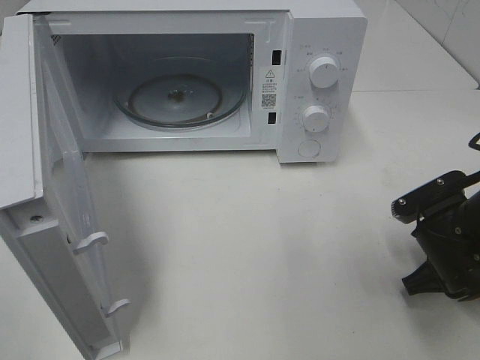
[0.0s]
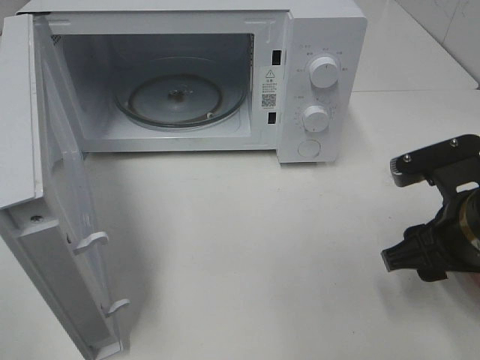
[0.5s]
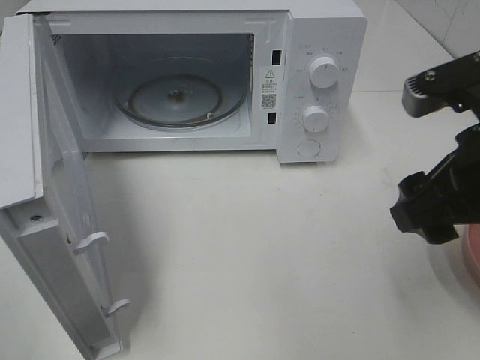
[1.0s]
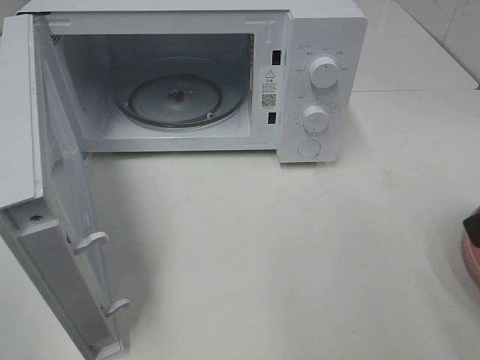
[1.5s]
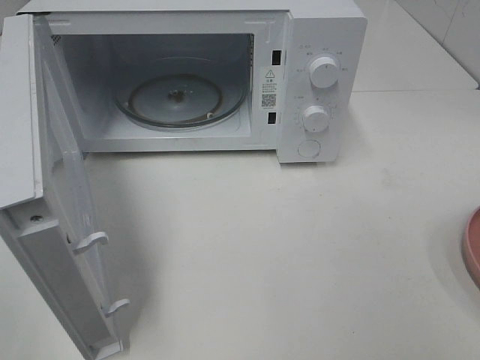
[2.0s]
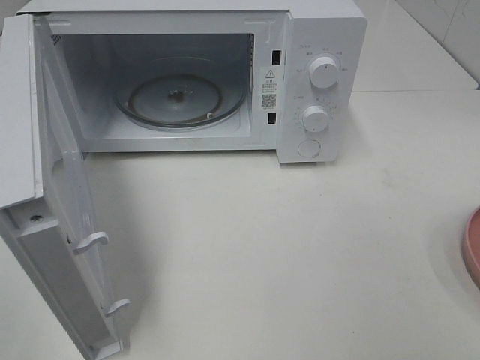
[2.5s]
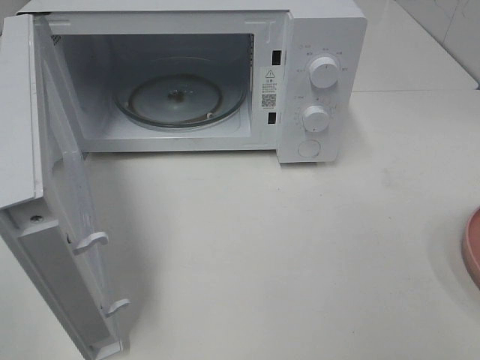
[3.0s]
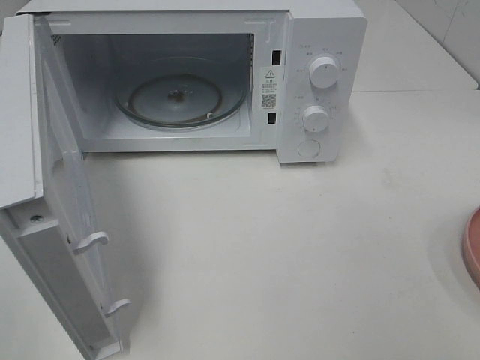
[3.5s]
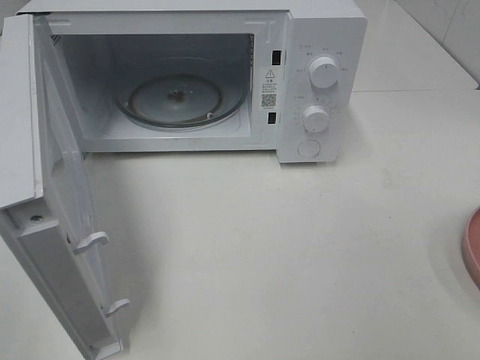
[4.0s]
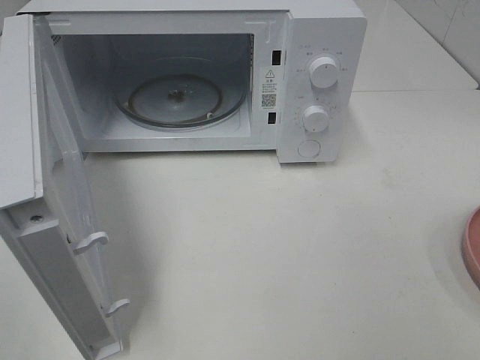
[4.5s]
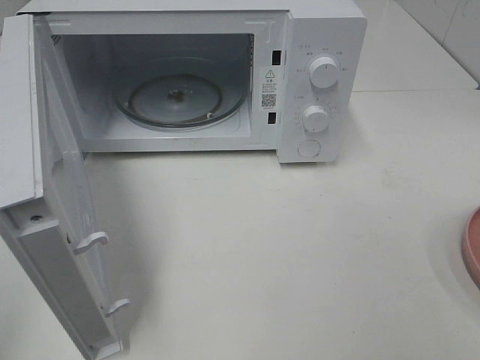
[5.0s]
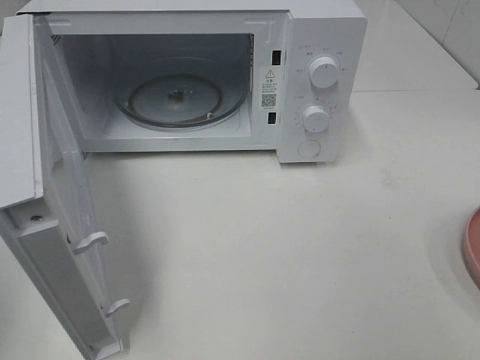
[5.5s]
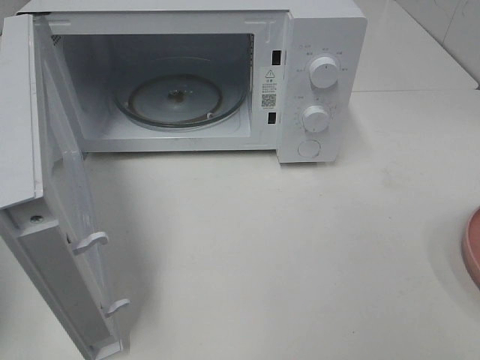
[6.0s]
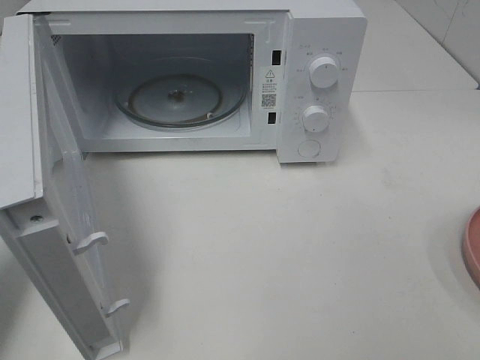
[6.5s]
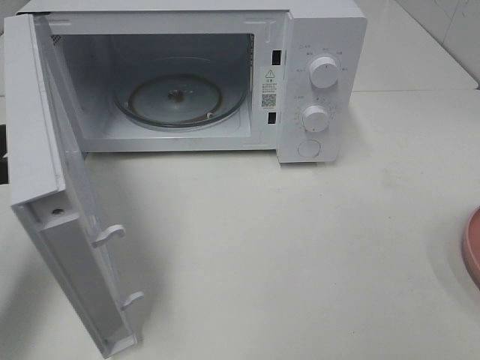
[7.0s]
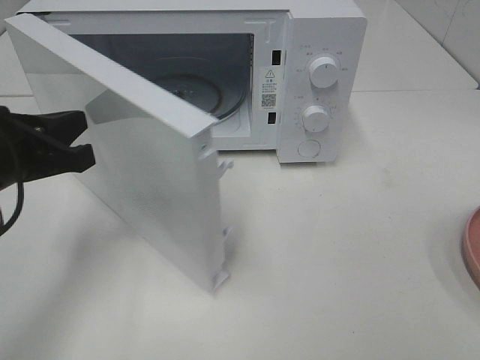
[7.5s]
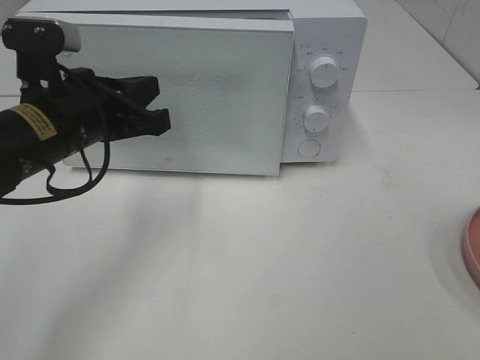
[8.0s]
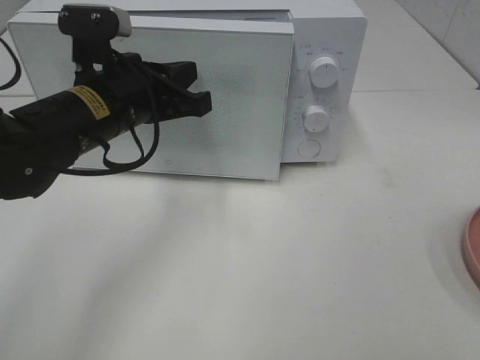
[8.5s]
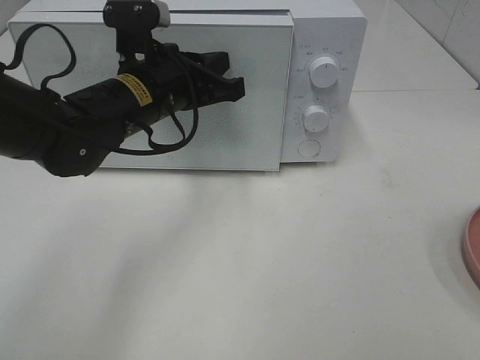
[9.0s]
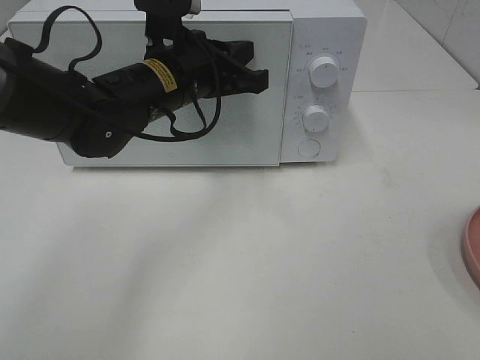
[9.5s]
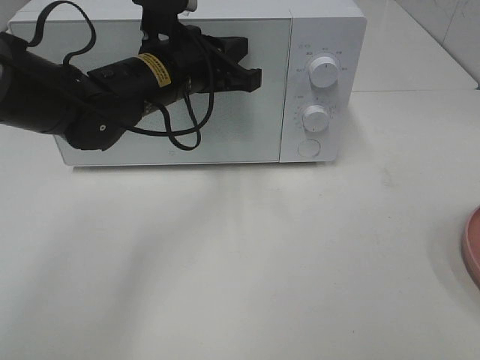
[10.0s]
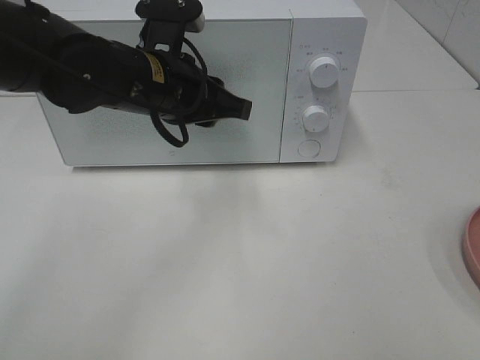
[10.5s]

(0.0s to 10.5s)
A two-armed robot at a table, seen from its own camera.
Task of the whole recording: Heat the burger.
Step, 0.0s - 10.0s: Left hand: close the microwave door.
0.0s - 2.0s: The right gripper goes some 25 cm upward and backward.
4.0s - 6.5s: The left gripper moves forward, some 20 cm, and closes up.
6.5s - 8.5s: The left gripper shifts roughly 25 cm to the right and forward.
8.5s - 10.5s: The left gripper opens.

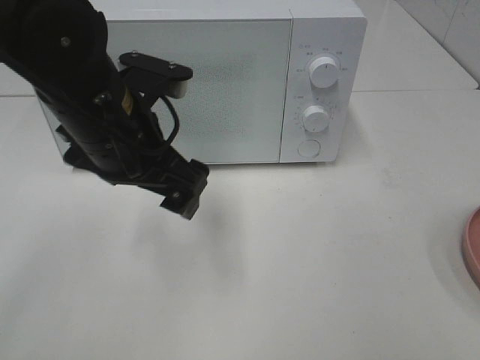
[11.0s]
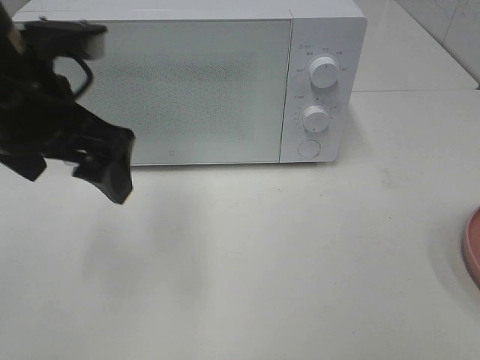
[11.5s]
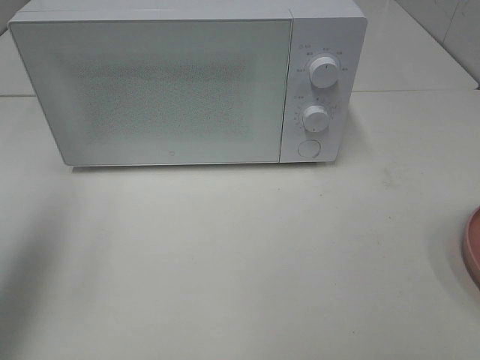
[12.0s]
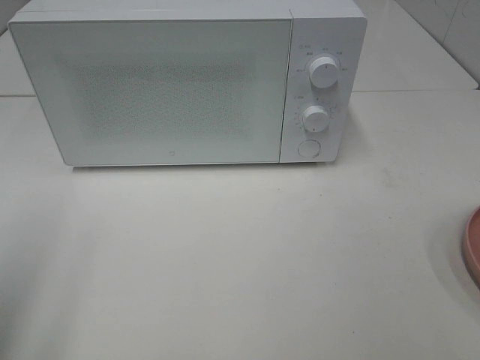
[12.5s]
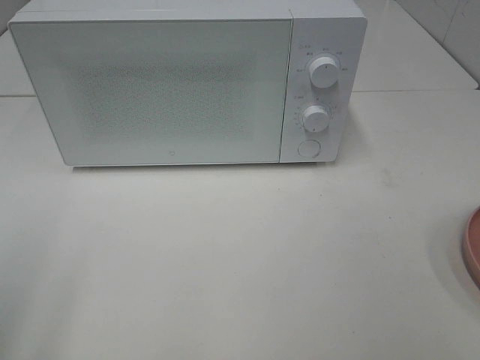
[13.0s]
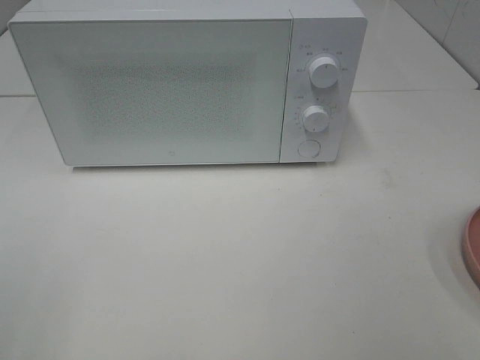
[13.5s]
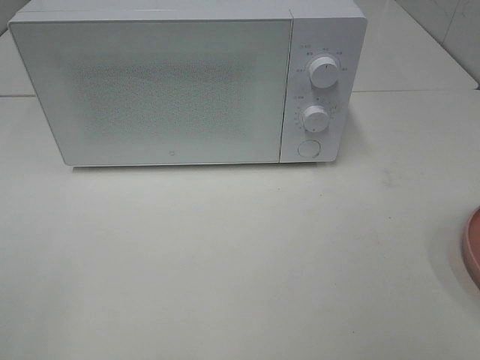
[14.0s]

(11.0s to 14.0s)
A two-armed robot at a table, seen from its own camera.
Task of the whole recording: Heat the burger.
11.0s - 12.5s: The left gripper is displaced to the left and backward by approximately 25 cm.

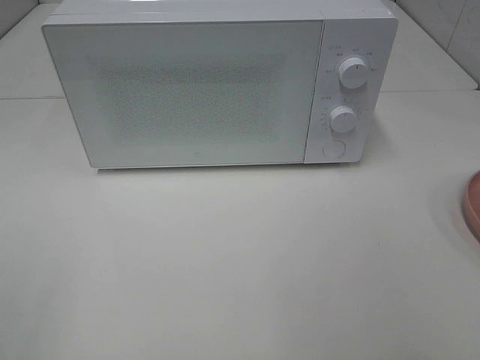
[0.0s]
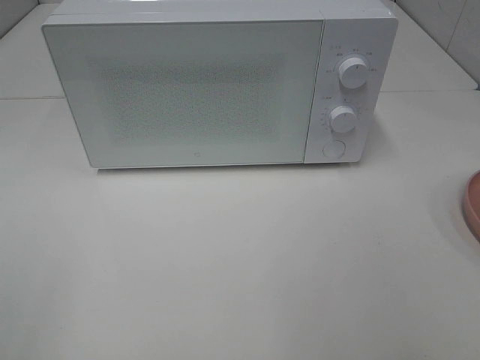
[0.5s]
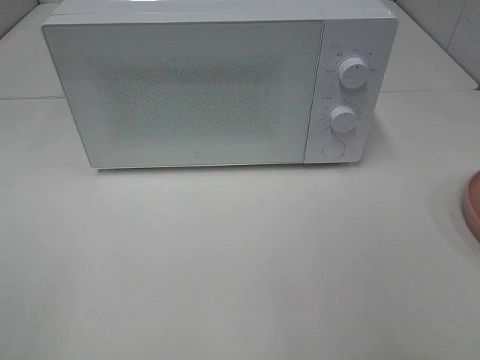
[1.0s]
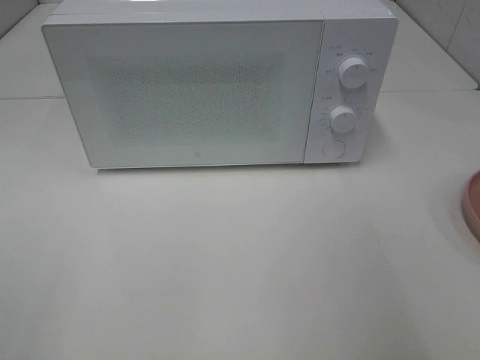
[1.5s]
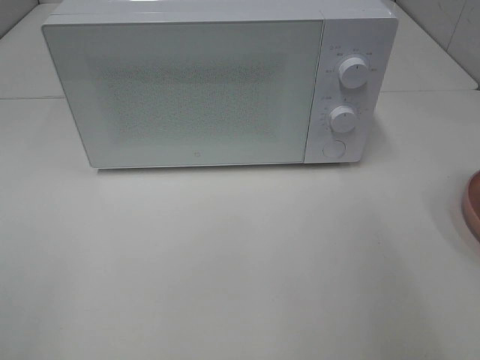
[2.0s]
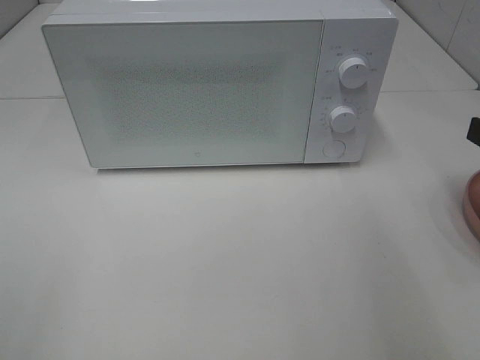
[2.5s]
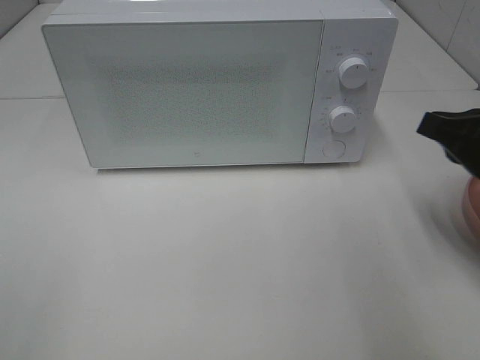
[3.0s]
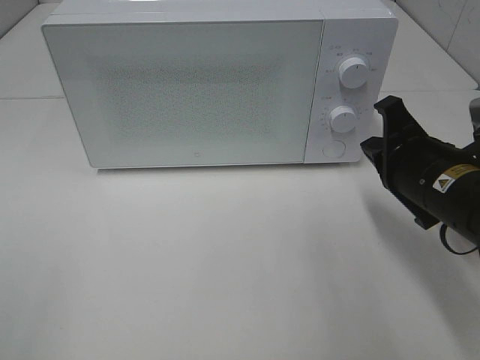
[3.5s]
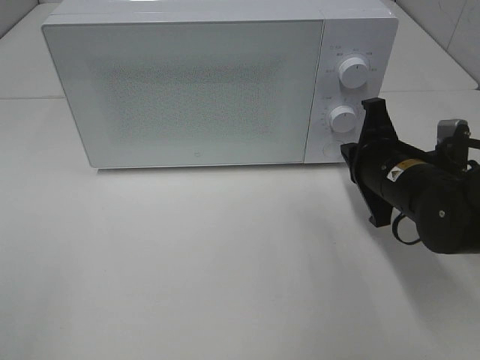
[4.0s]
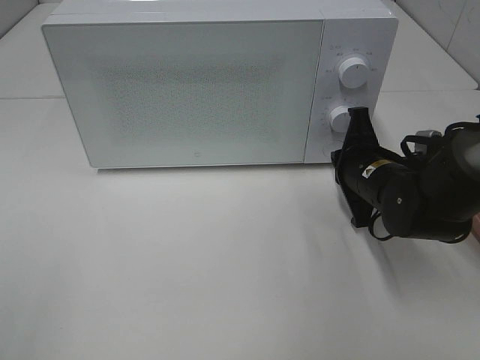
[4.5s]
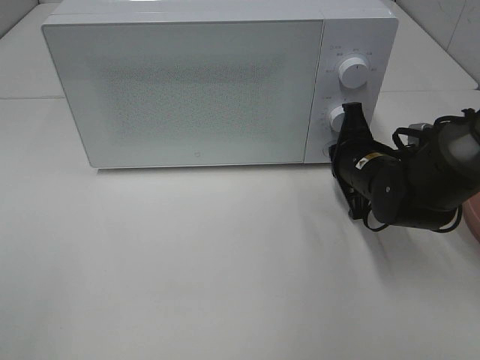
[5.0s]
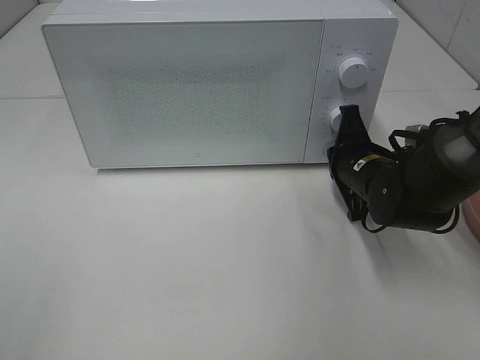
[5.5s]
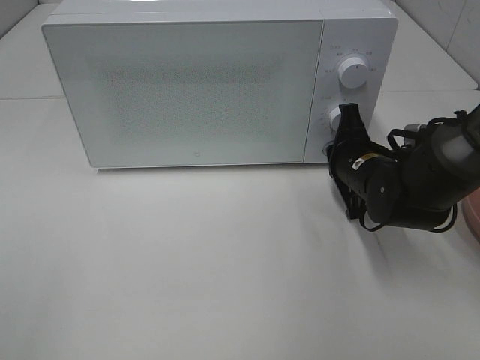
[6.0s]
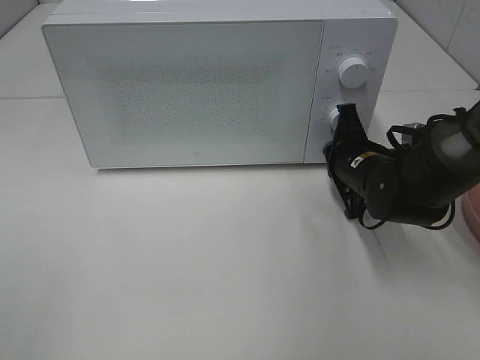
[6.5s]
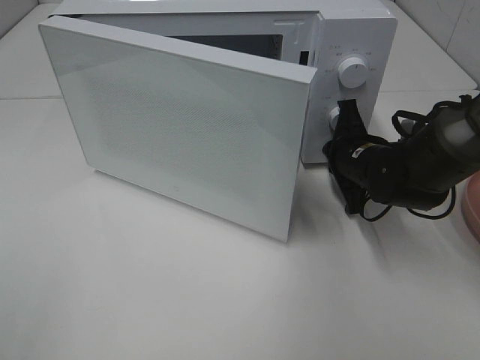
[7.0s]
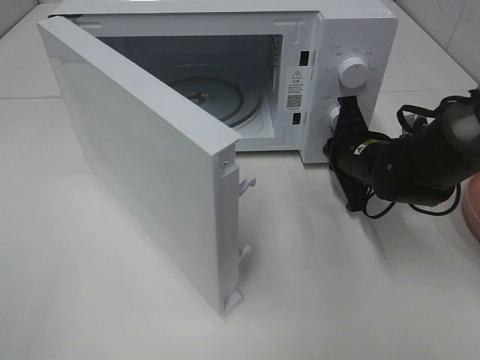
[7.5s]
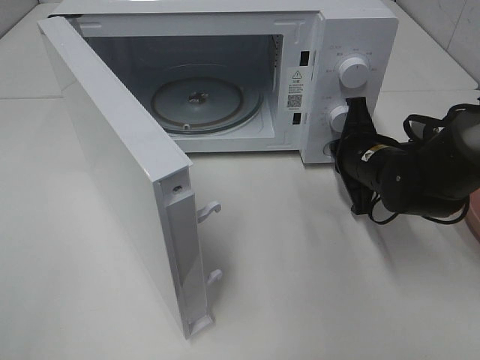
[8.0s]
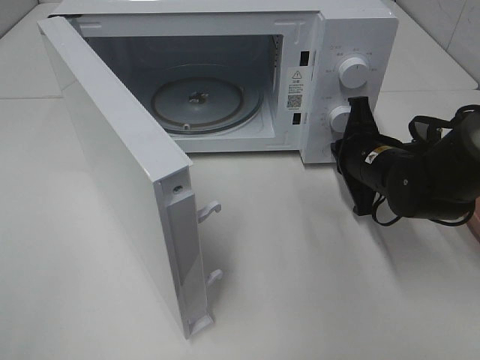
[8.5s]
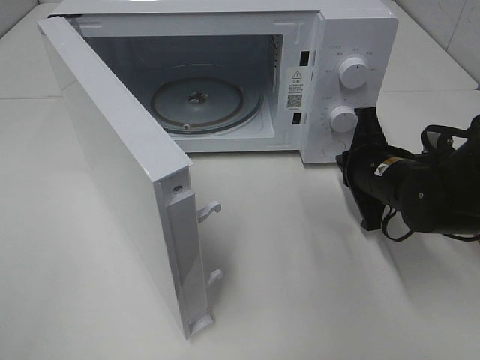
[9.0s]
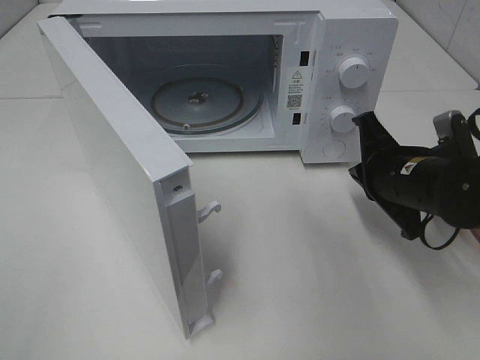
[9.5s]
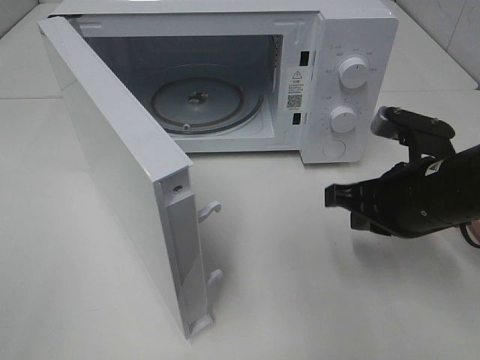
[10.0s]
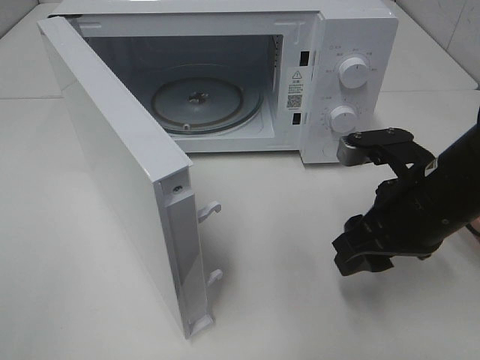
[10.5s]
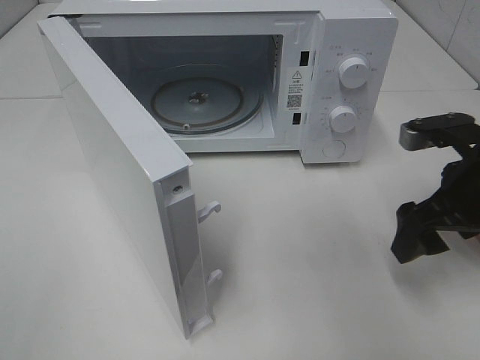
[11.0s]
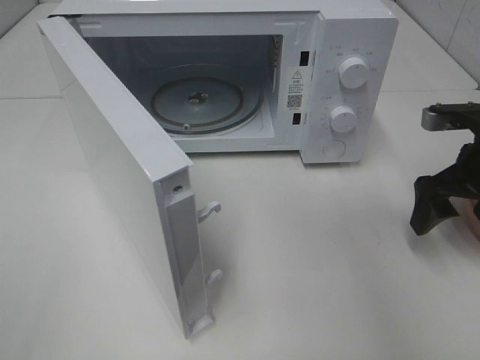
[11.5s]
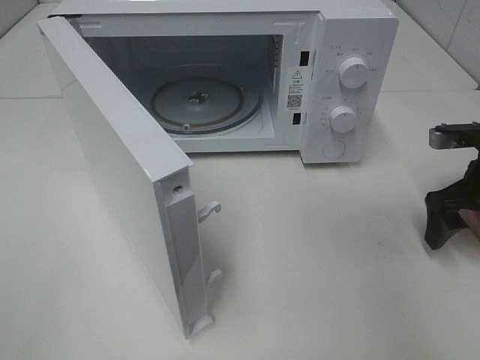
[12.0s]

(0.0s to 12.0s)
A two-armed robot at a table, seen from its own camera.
Task of the whole recording: Heat the burger.
Step, 0.0s - 8.0s: Right hand: press the switch.
2.0s - 4.0s: The right gripper is displaced downward, forward and to the left by about 20 cm.
4.0s - 6.0s: The right gripper changes place by approximately 5 cm.
8.0s - 10.0s: The right gripper moves backward and upward, roughly 10 cm.
10.0s - 12.0s: The right gripper shifts roughly 15 cm to the right and forward, and opens up.
